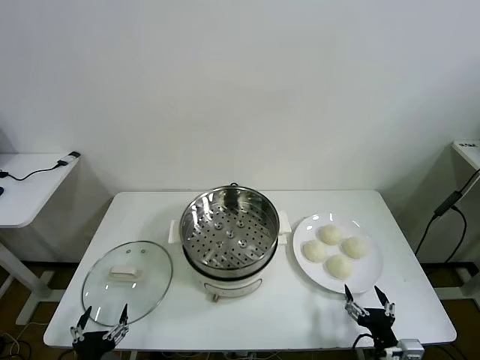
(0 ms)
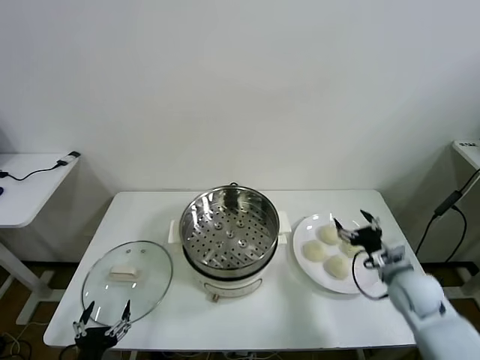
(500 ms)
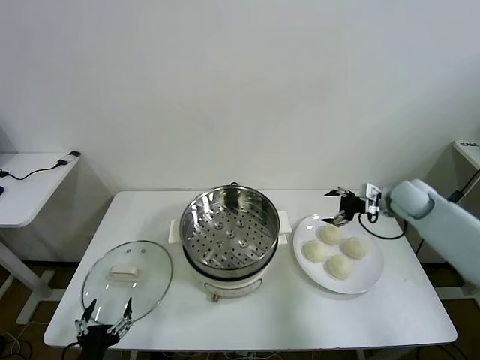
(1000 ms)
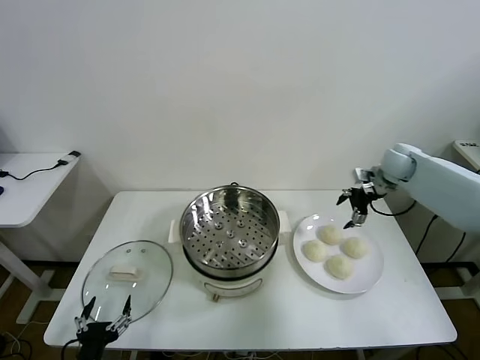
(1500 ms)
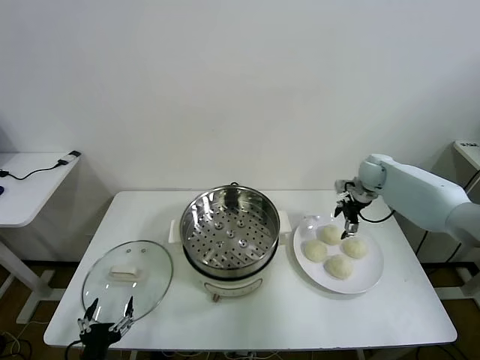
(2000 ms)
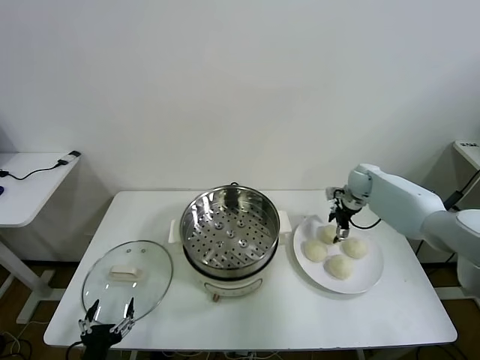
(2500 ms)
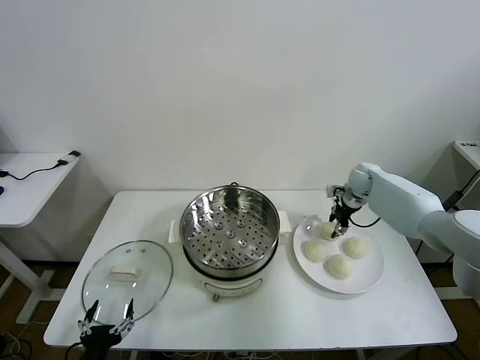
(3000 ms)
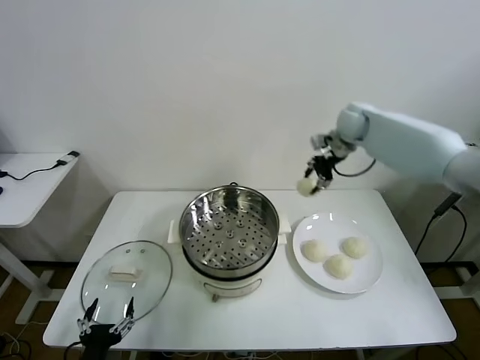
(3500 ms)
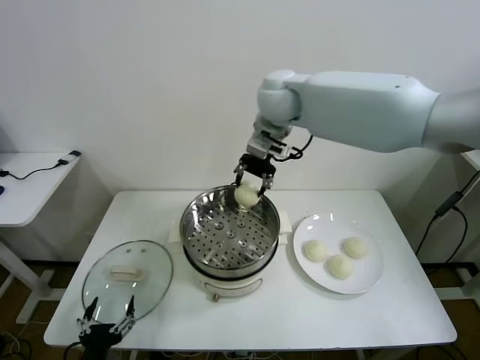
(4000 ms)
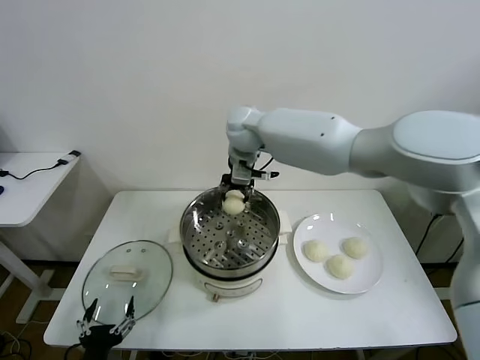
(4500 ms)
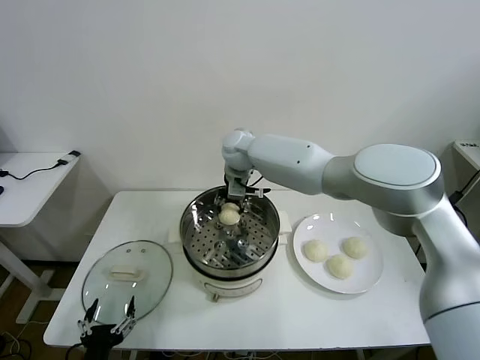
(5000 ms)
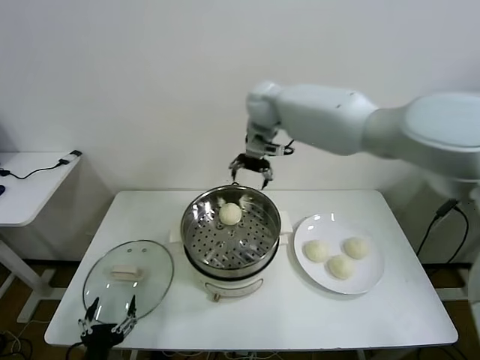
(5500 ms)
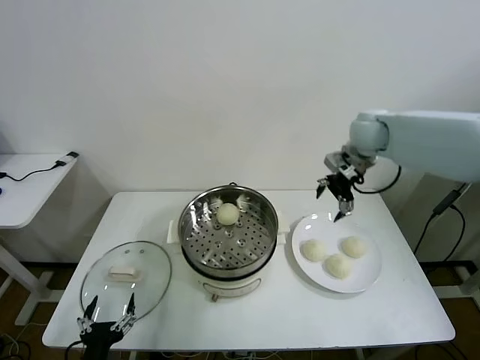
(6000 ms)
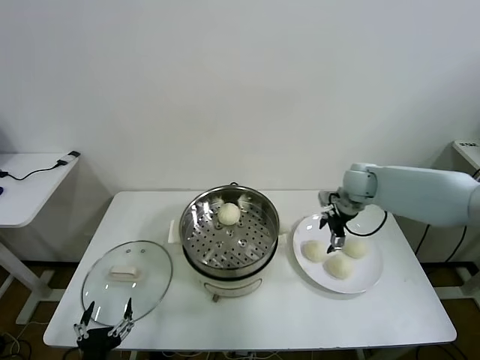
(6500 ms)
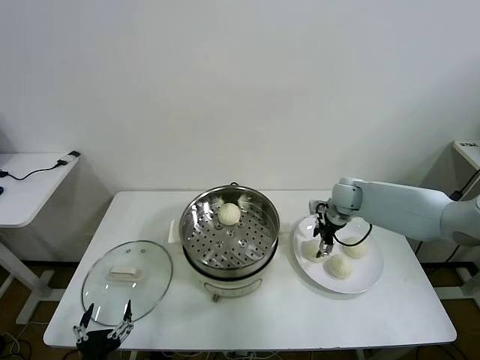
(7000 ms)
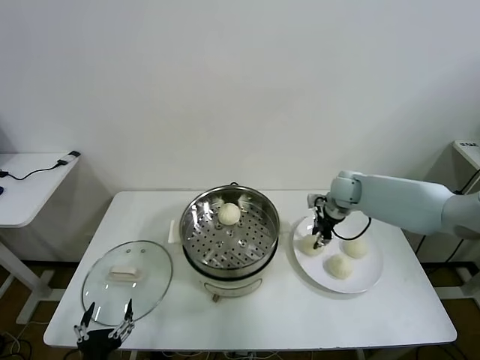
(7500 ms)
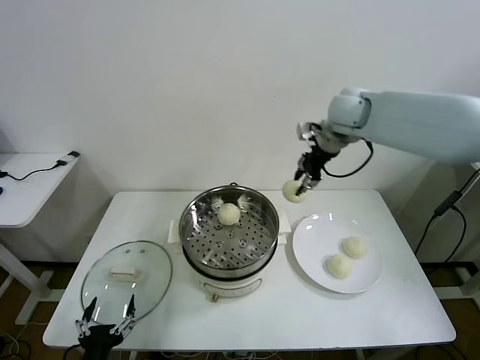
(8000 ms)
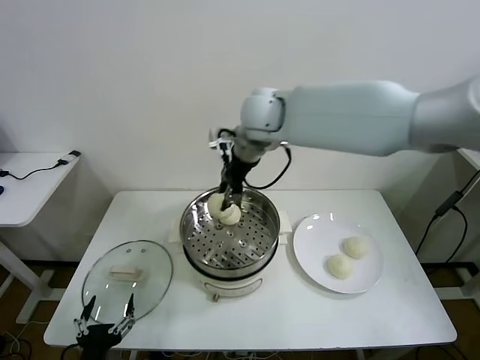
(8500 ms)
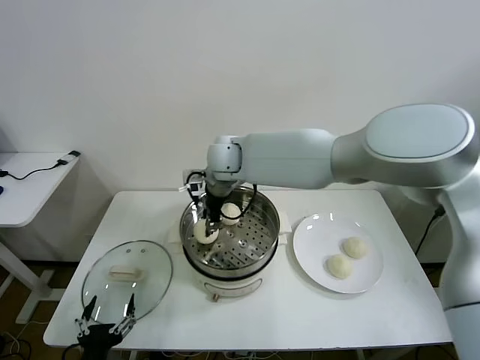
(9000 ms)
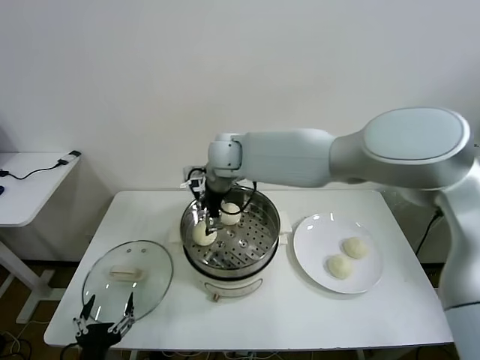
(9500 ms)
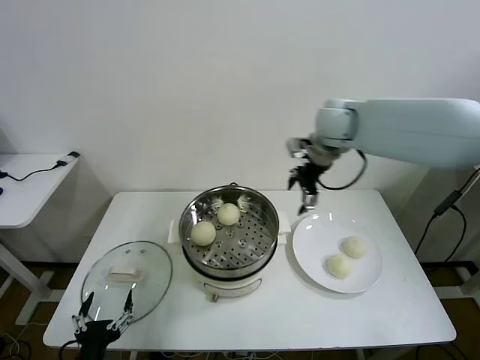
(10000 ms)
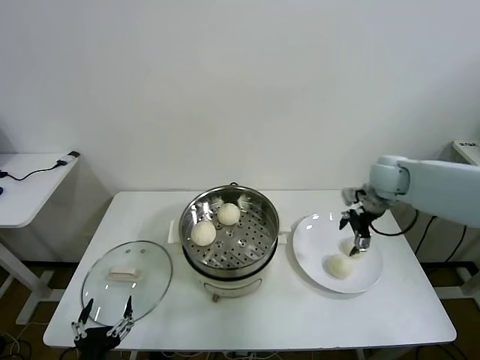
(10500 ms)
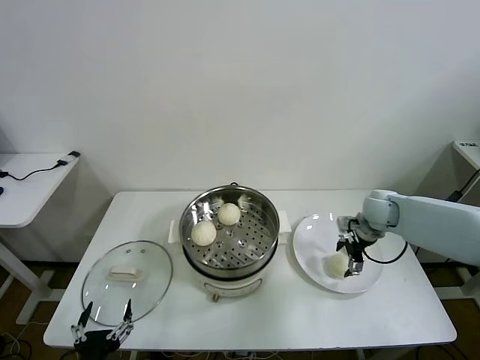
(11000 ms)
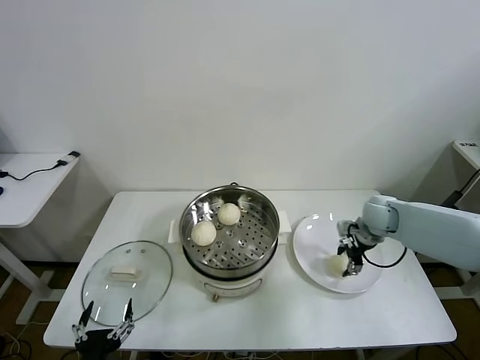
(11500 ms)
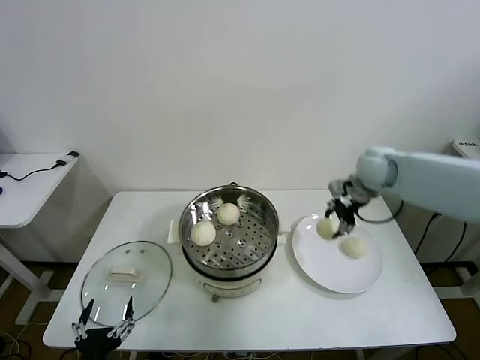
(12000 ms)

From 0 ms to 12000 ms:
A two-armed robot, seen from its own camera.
Task of the whole recording: take steamed baozi put them in steamer then cover it.
Step, from 0 ms to 2500 ms: Grasp the baozi in the plate with right gripper.
Step, from 3000 ms to 5000 ms: Place the baozi on the steamer with right gripper.
Step, from 5500 ms to 7000 ms: Grasp the baozi in the plate with right gripper.
Step, from 7500 ms to 9000 ms: Place the baozi on the steamer with right gripper.
Step, from 9500 ms to 11500 ms: Grasp the baozi in the plate with right gripper.
From 2000 ms to 4000 ms: The right gripper heads to the left and upward, covering roughly 40 cm, and closes its fingers.
From 4000 ms to 6000 ms: The right gripper shifts about 25 cm to the right and downward, and opens its fingers.
From 6000 ms to 8000 ms: The right gripper heads to the left, covering approximately 5 cm, reaches approximately 20 cm downward, then returns, and closes.
From 8000 ms to 10000 ms: The right gripper travels to the left and back again, about 25 cm each way, and opens up.
From 10000 ms to 12000 ms: The right gripper shifts some 15 cm downward and to the right, and closes up.

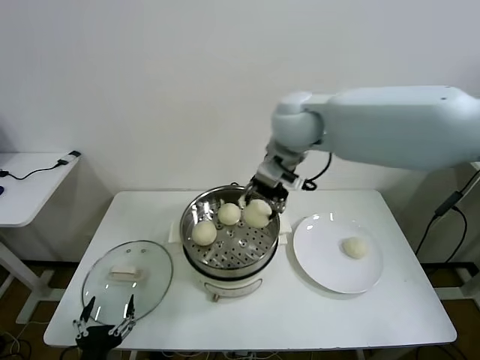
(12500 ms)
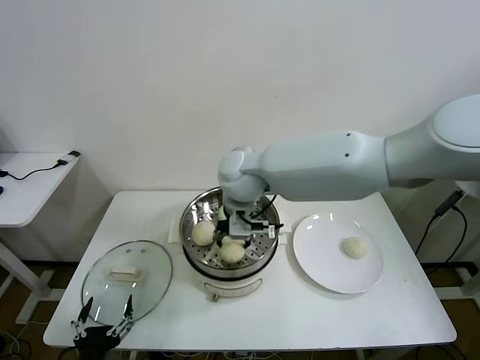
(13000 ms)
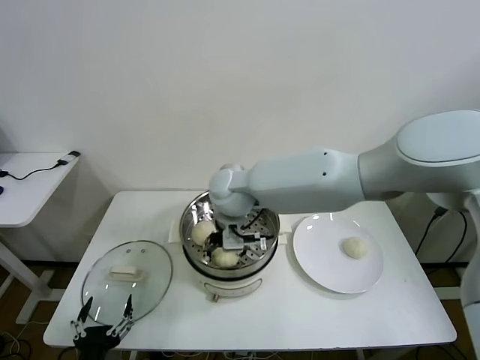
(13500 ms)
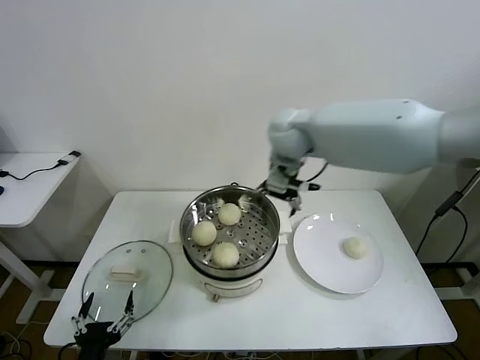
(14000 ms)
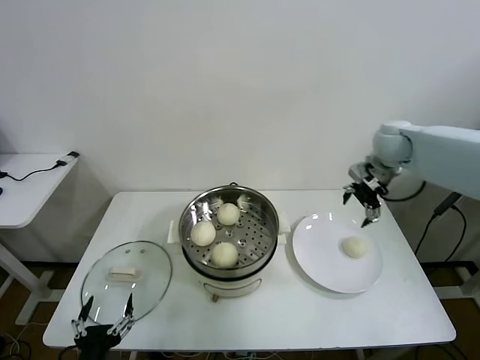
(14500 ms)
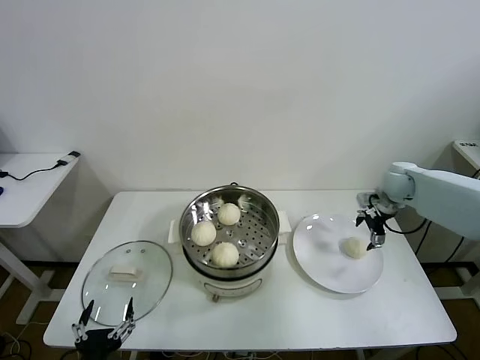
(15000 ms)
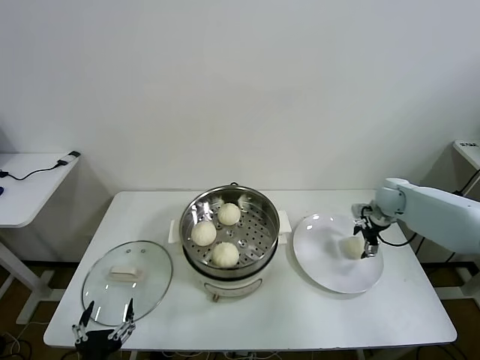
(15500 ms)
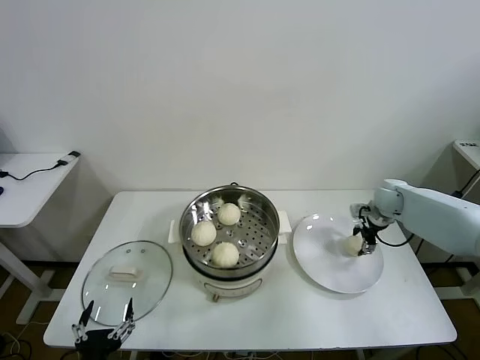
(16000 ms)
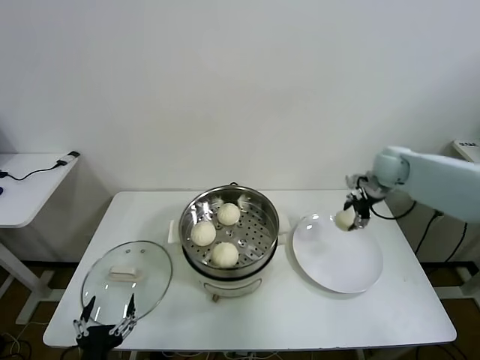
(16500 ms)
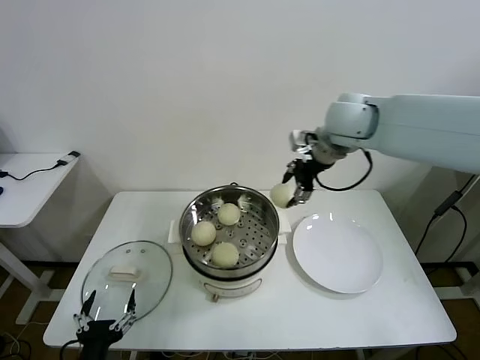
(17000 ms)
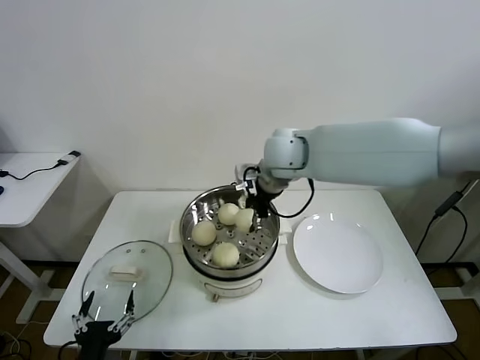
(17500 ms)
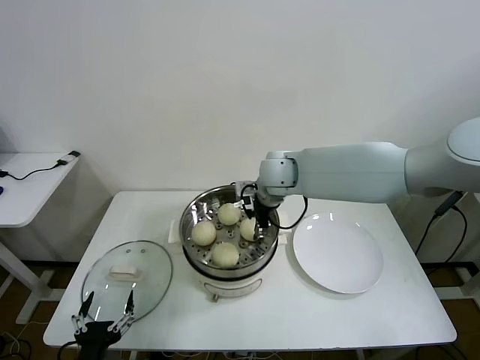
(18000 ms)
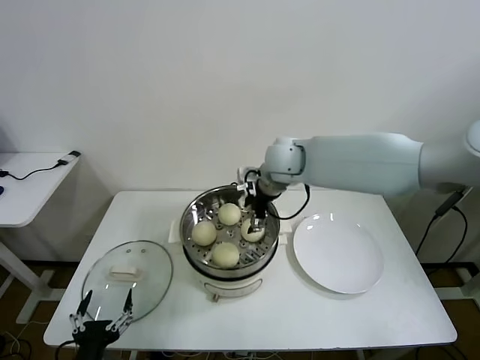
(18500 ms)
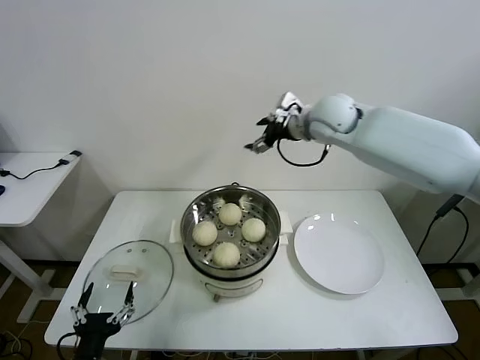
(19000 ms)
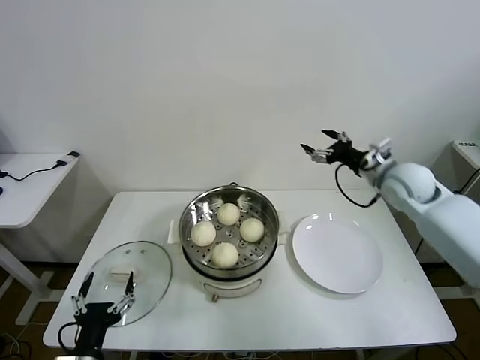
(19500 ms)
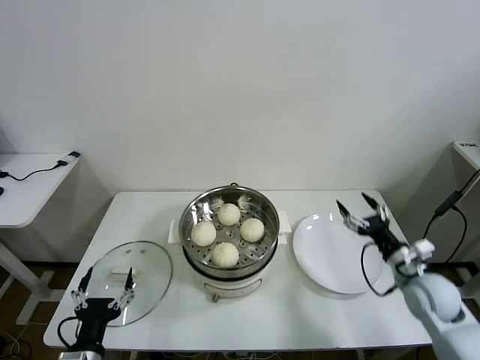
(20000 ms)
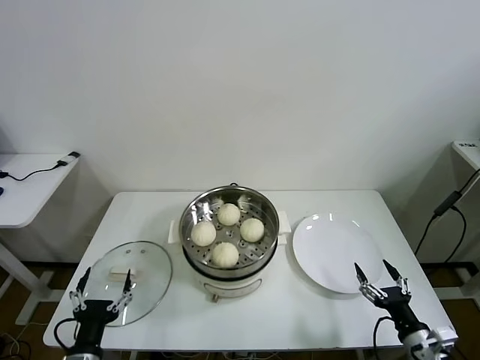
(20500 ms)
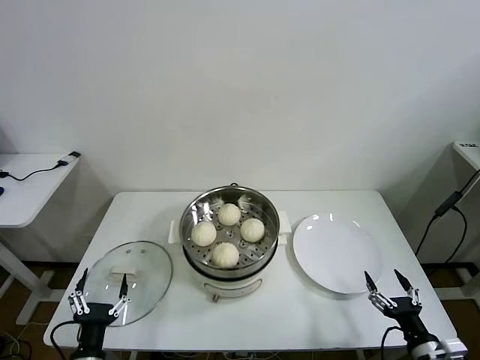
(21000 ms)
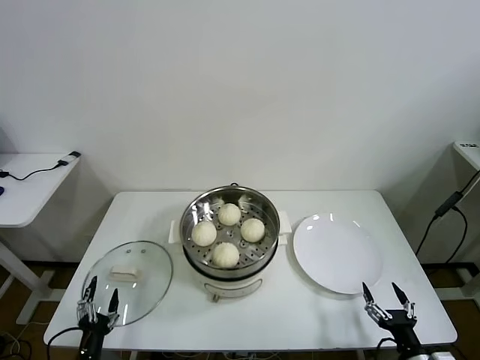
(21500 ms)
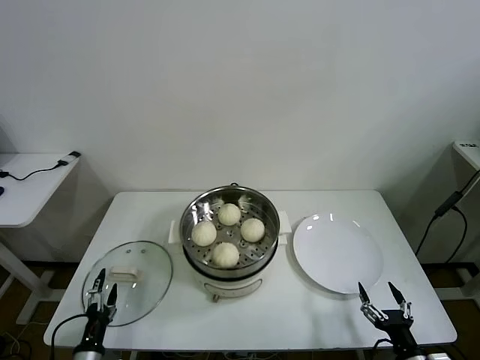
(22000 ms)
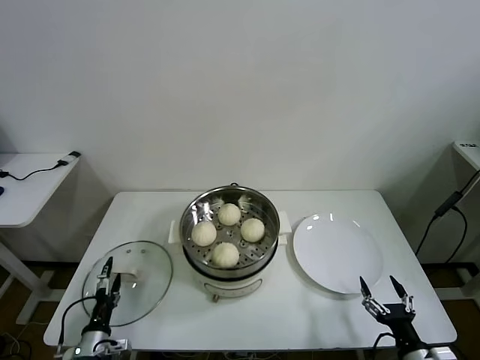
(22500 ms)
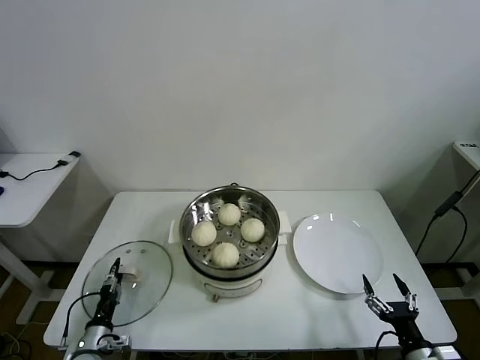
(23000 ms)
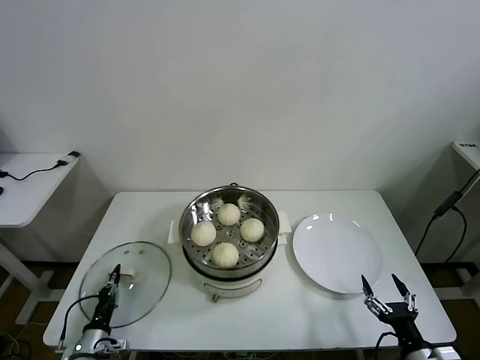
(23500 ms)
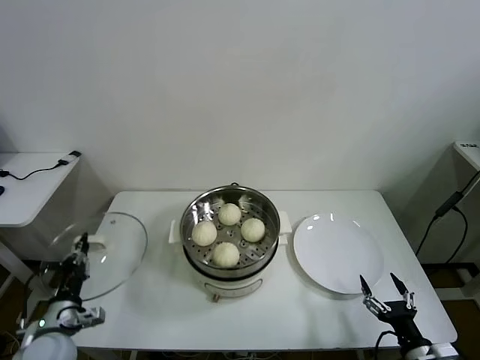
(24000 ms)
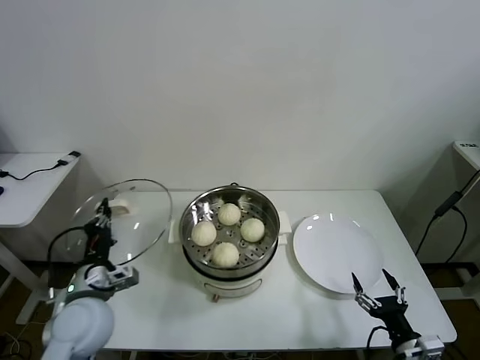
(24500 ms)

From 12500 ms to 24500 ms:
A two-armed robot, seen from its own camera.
Task of the whole recording: take steamed baozi put them in steamer then cover it.
Step, from 12500 ms to 13500 ms: Place the baozi on the steamer with right gripper.
Step, from 14000 ms to 16000 ms: Grasp the baozi in the plate with right gripper.
Step, from 16500 ms to 18000 ms: Place the baozi on the steamer with right gripper.
Step, from 18500 ms to 23000 ms: Grasp the pot lid with left gripper.
From 12500 ms to 14500 ms: The right gripper travels to the right by about 25 cm, and opens up.
From 14500 ms to 16500 ms: The right gripper travels downward by roughly 10 cm, and closes.
From 16500 ms to 18500 ms: The right gripper is displaced to the left by about 30 cm, and opens.
From 18500 ms to 20500 ms: The right gripper is displaced backward, to the right and downward by some 50 cm.
From 20500 ms to 22500 ms: The left gripper travels downward, forward and to the left by approximately 15 cm.
From 22500 ms to 24500 ms: The left gripper heads upward, covering about 20 cm, and closes up.

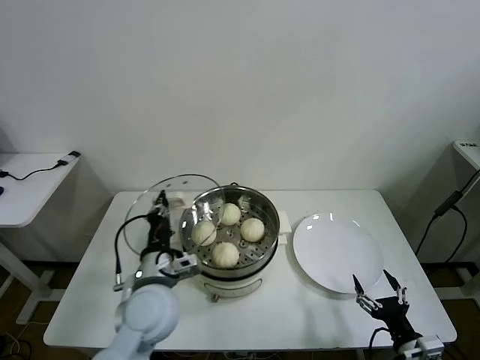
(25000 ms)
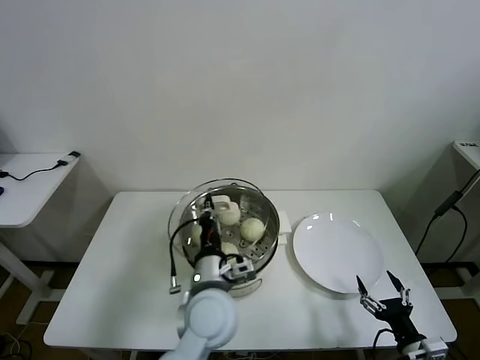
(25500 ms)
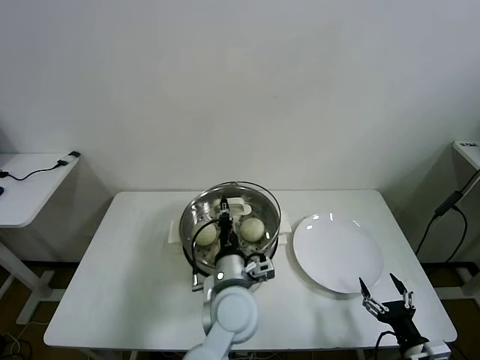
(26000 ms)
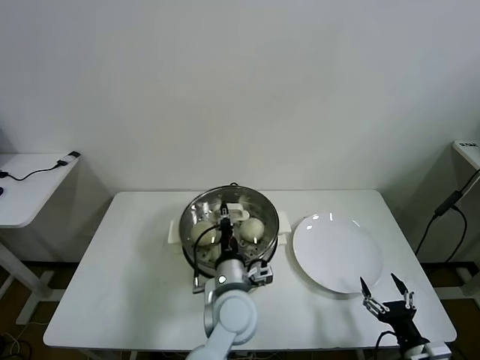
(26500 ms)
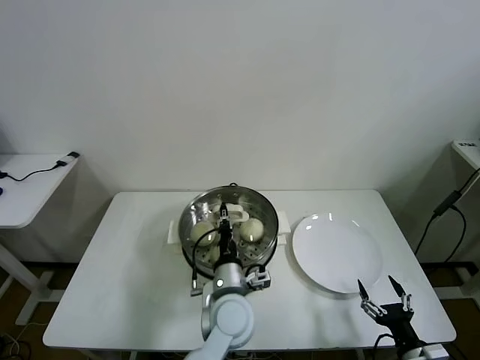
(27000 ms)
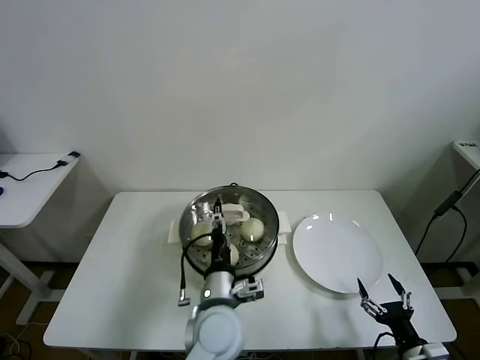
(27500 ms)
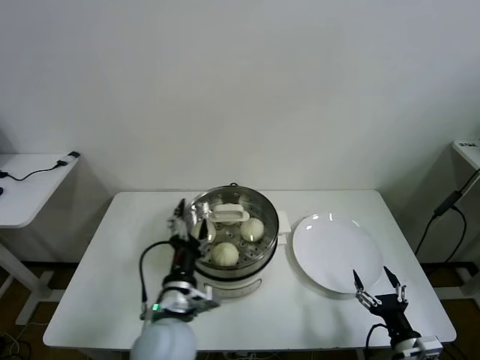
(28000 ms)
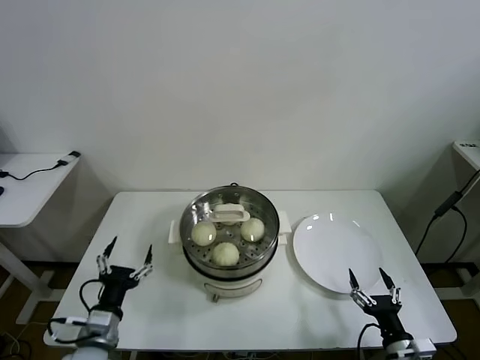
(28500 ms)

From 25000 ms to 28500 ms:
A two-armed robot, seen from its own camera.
Task of the whole recording: take steamed baozi put them in steamer then cover it.
Step, from 25000 ms to 27000 ms: Place the pot lid on the steamer with left gripper.
From 25000 ms to 27000 ms: The left gripper moves to the right and downward, some 15 cm.
From 27000 ms to 28500 ms: The left gripper moves to the left, about 25 cm, and opens up.
